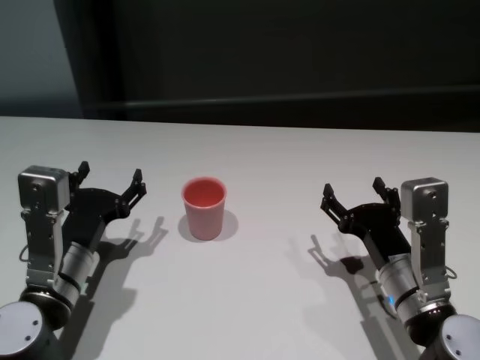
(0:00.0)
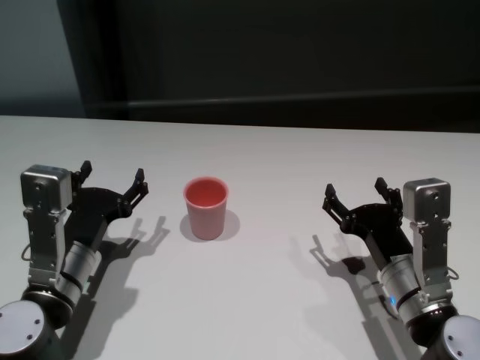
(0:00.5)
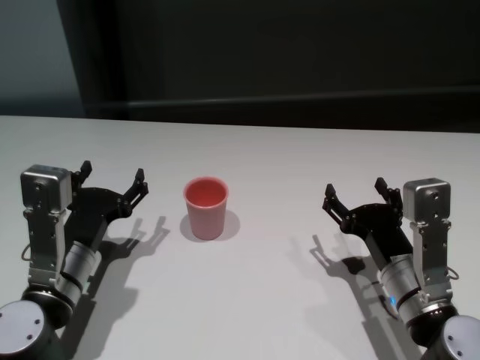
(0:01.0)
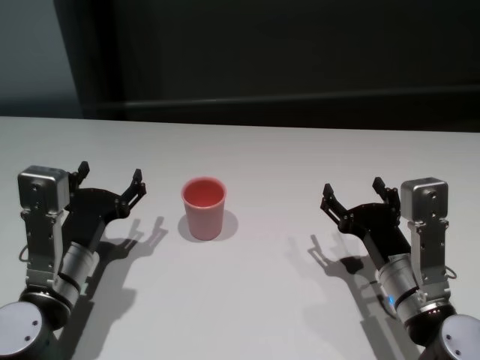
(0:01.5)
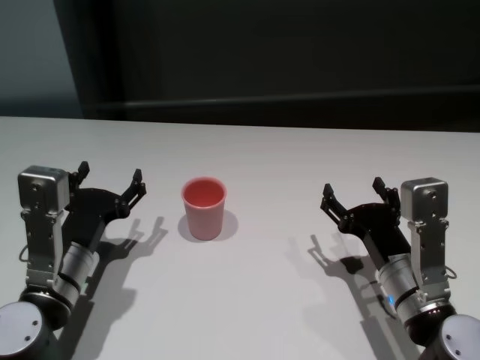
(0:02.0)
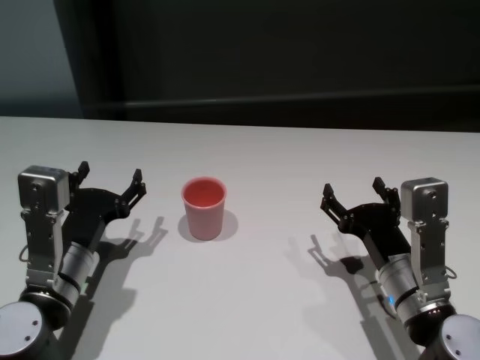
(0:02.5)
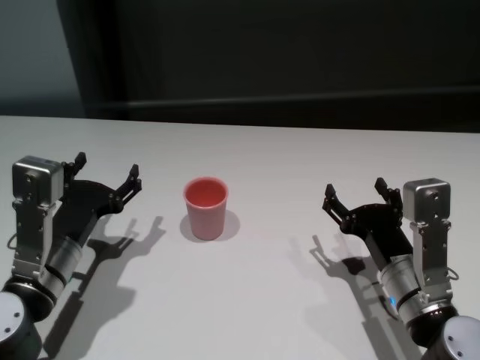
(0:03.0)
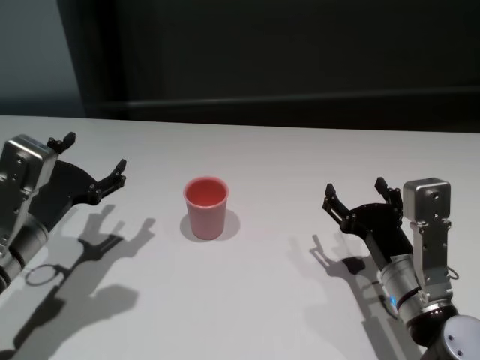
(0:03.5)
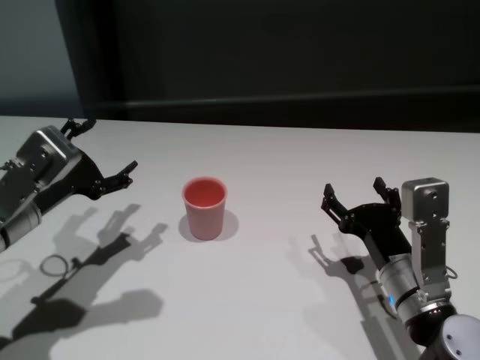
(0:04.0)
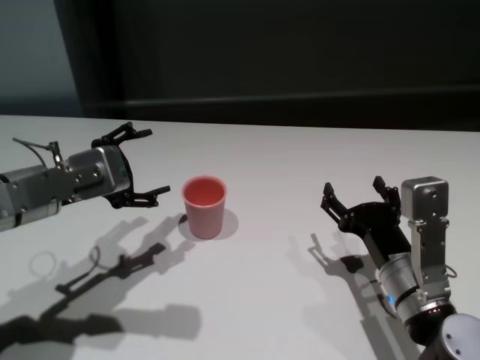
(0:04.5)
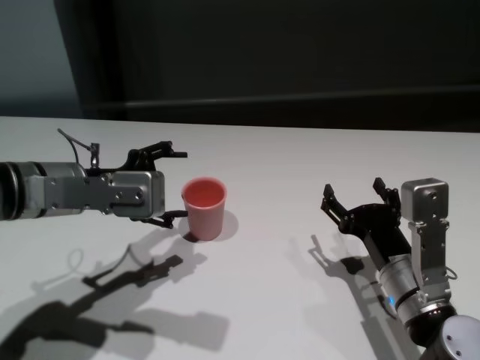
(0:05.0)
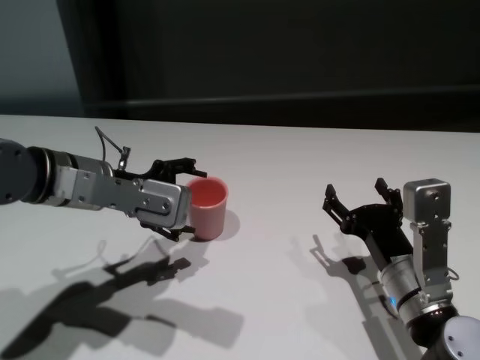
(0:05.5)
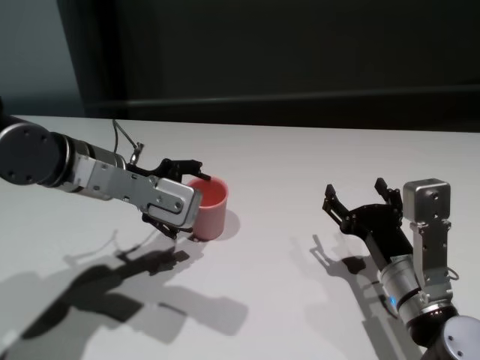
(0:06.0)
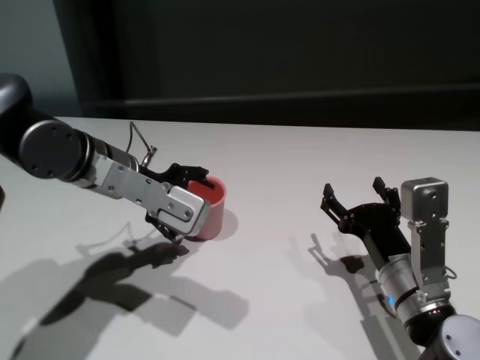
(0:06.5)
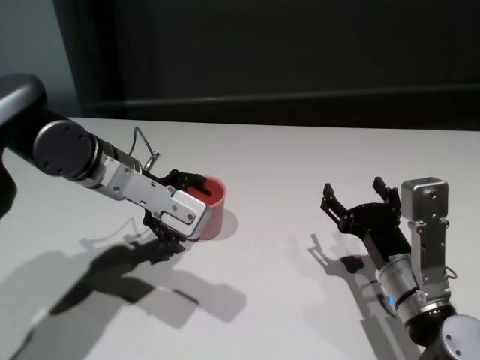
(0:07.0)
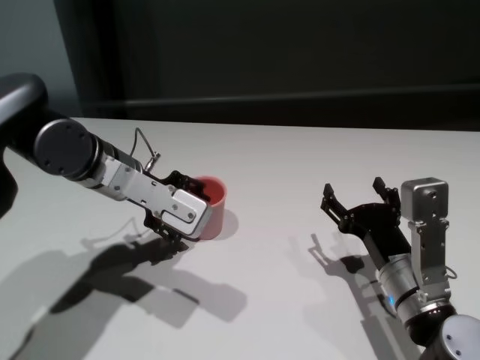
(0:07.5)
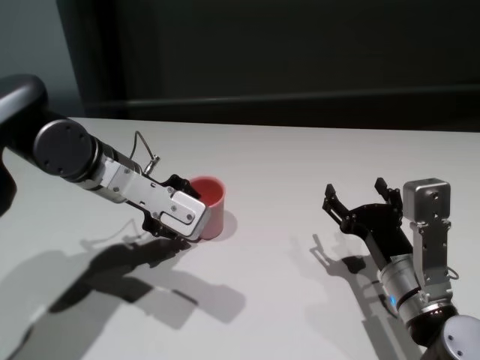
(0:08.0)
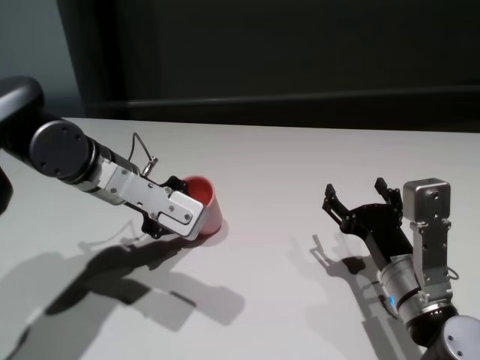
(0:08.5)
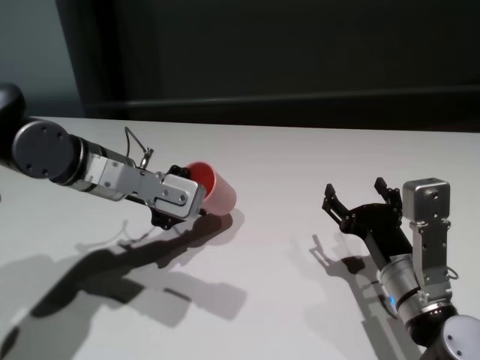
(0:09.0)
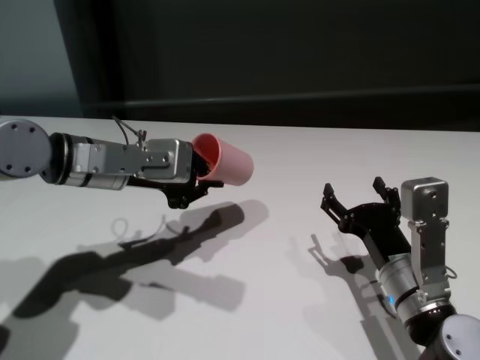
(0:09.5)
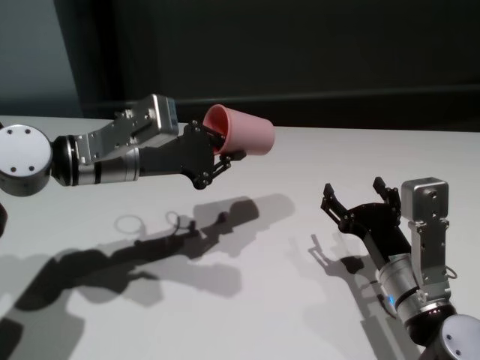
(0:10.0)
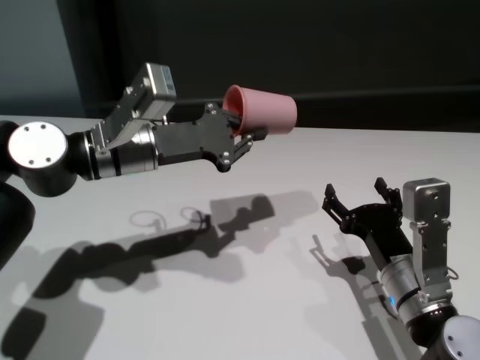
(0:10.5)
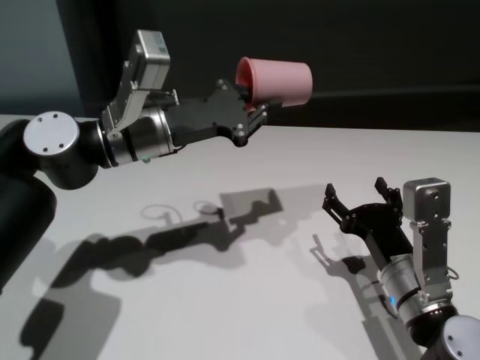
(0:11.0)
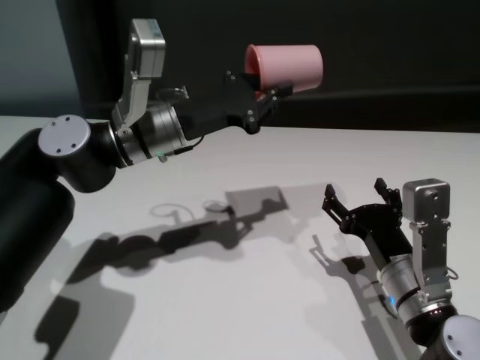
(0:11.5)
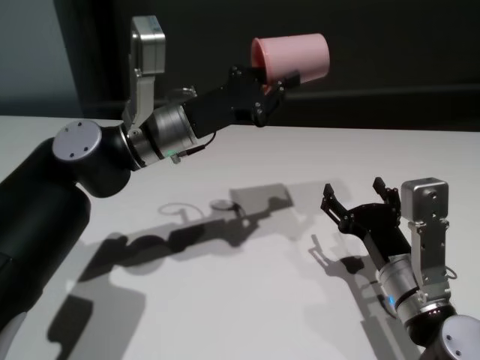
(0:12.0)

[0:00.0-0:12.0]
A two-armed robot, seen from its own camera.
Task of the whole recording: On the white table pick up the cup with one hand and transfer it to the other hand before turning it over.
Step, 0:00.0 to 0:08.0: Grasp the cup with left gripper.

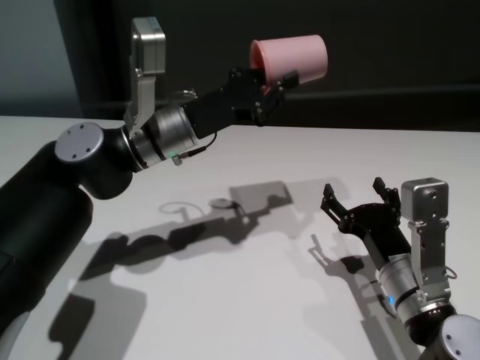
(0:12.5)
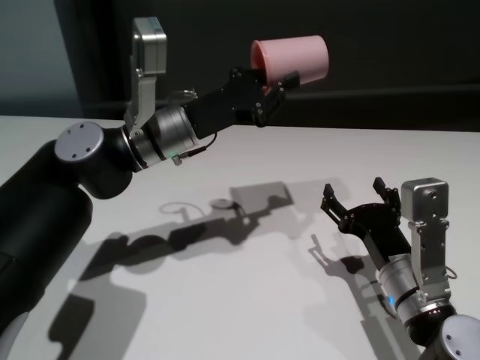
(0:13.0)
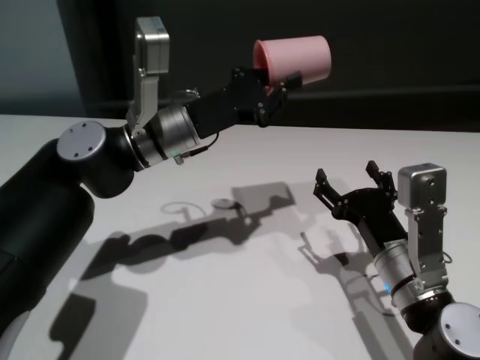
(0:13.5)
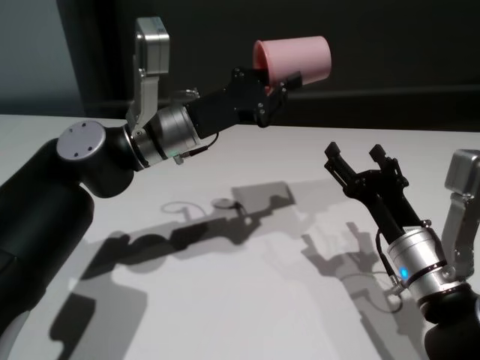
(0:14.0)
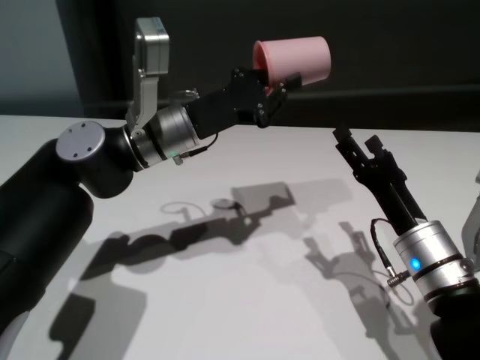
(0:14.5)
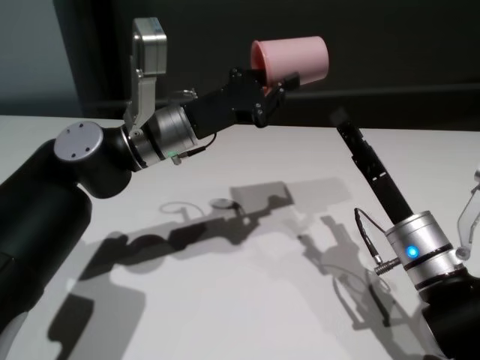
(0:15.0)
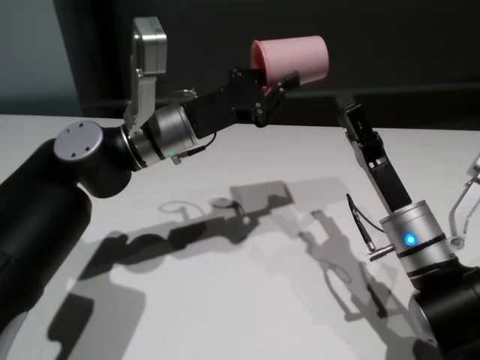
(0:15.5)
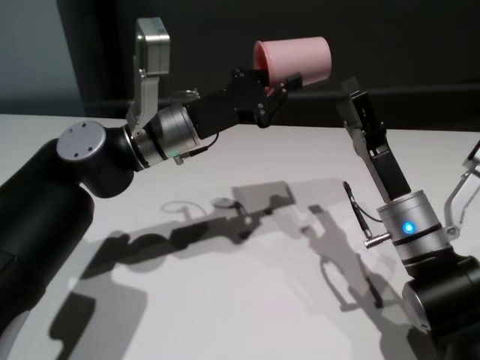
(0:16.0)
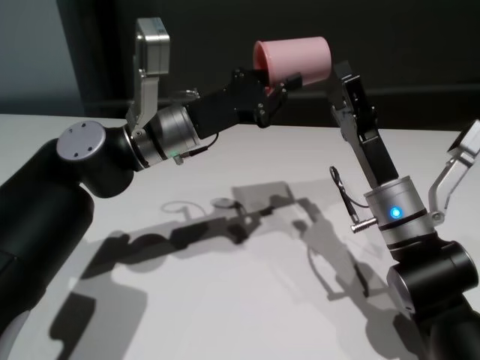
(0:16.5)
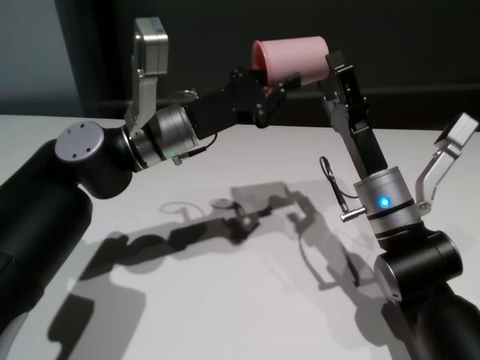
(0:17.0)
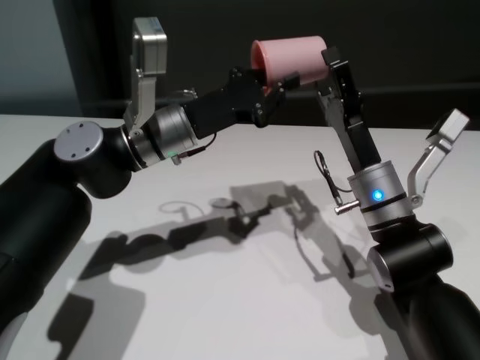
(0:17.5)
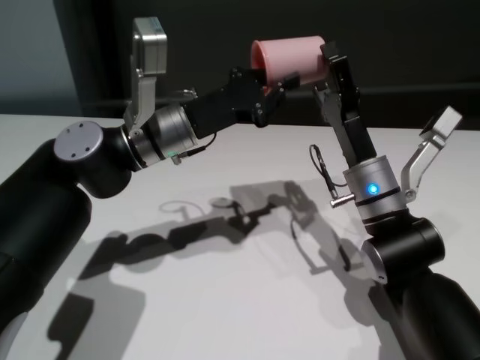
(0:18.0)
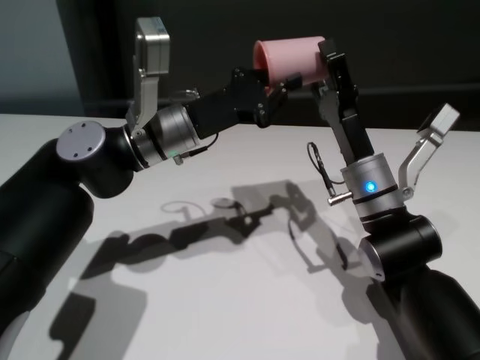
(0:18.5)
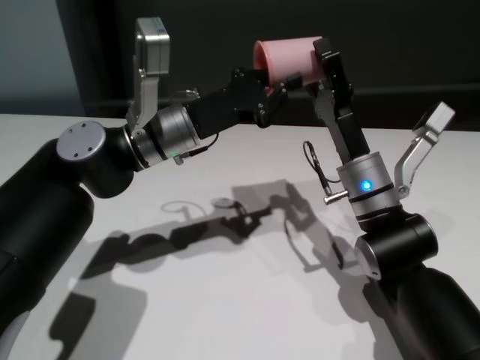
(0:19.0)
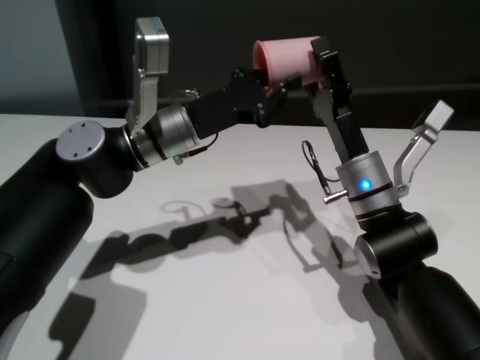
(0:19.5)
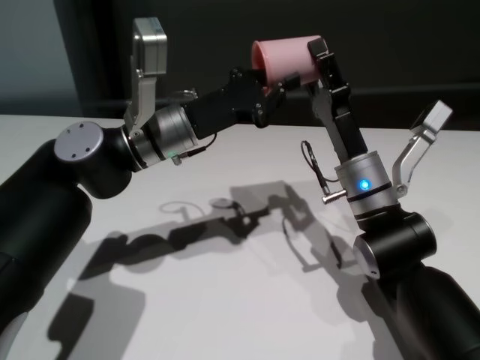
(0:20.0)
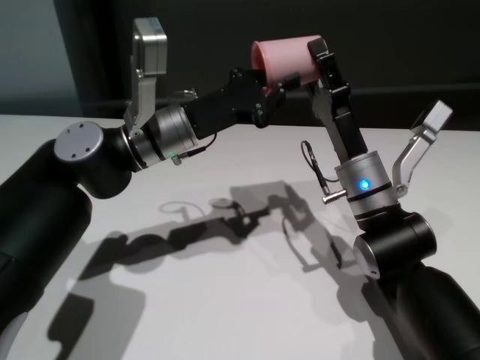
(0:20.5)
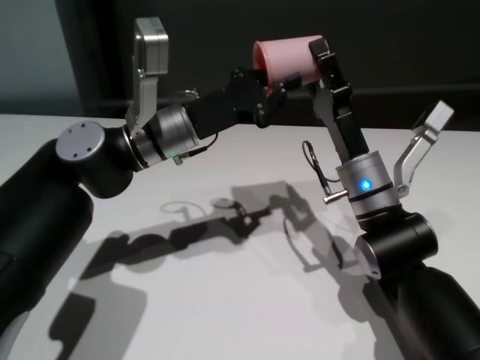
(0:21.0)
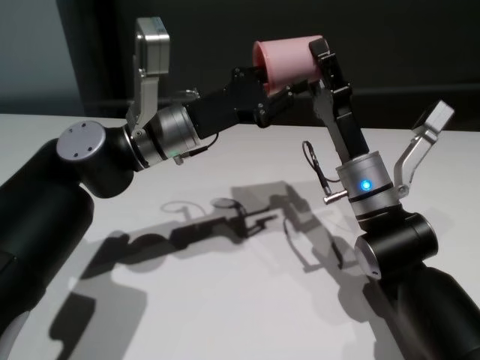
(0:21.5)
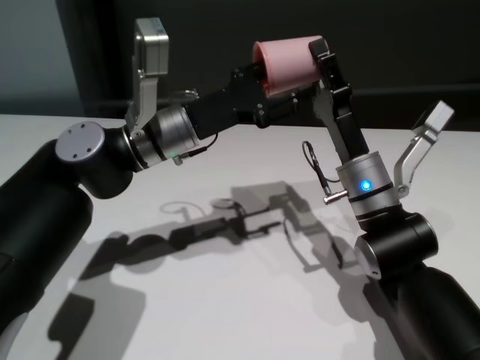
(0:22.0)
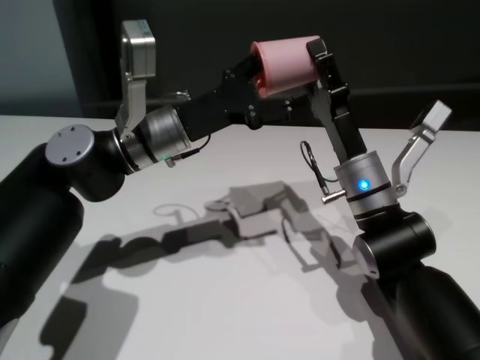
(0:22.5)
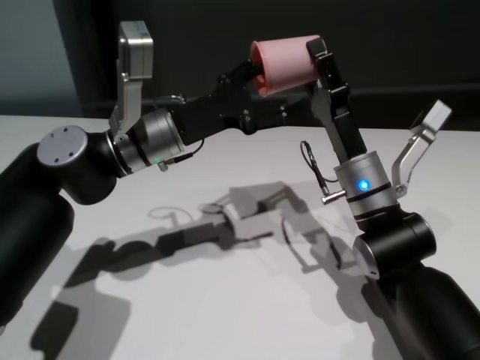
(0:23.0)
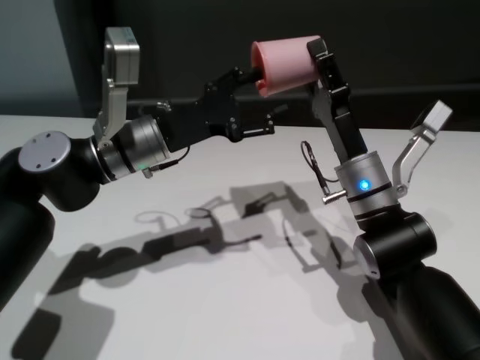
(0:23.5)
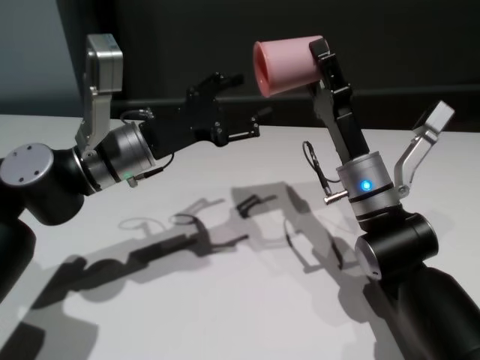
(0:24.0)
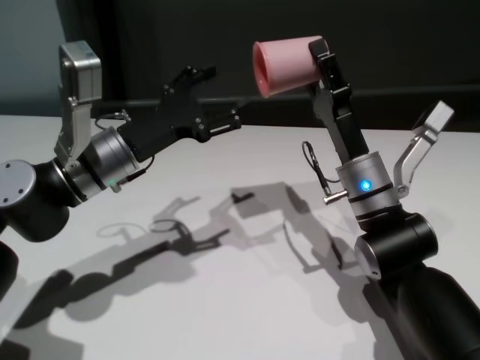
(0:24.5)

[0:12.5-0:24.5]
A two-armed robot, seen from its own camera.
Task of the whole recording: On the white table pick up the cup with one hand and transfer it to the other hand before turning it over.
Step, 0:12.5 to 0:24.0: Pass the cup to the right gripper.
